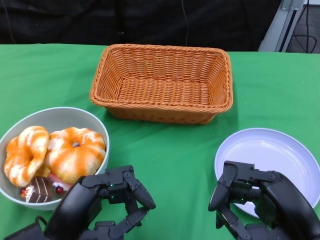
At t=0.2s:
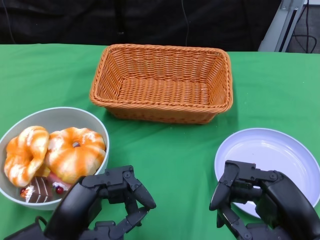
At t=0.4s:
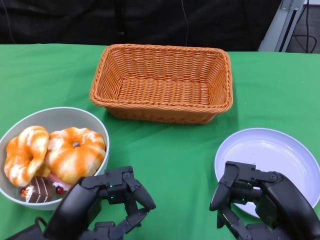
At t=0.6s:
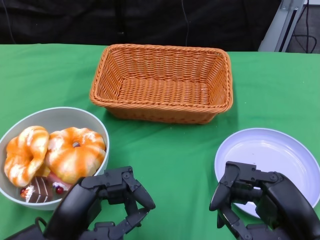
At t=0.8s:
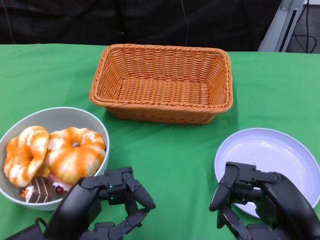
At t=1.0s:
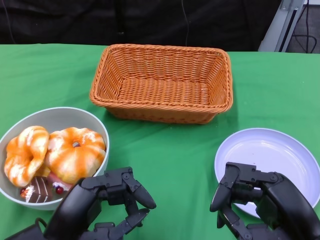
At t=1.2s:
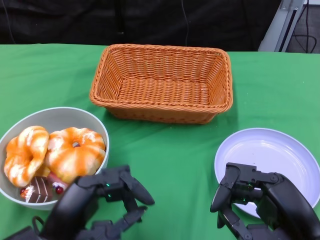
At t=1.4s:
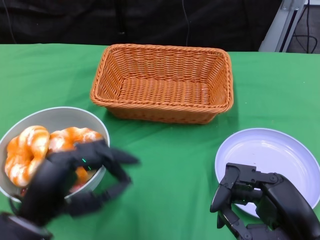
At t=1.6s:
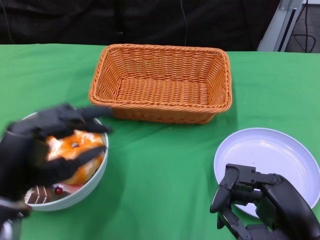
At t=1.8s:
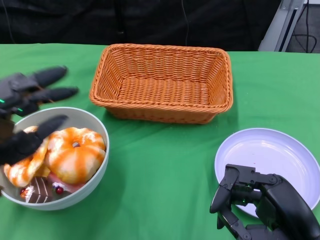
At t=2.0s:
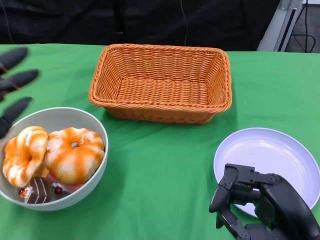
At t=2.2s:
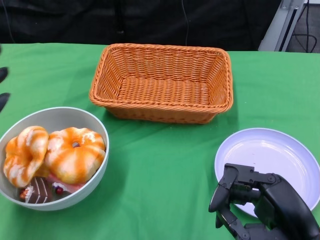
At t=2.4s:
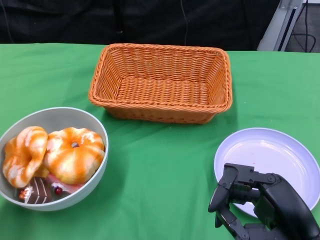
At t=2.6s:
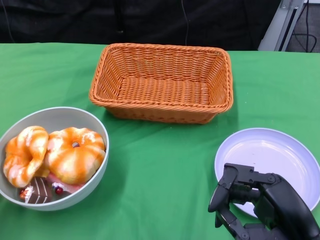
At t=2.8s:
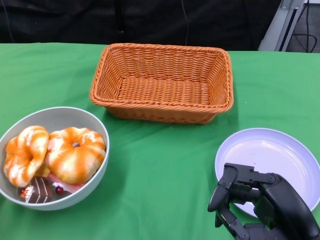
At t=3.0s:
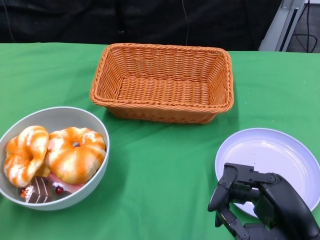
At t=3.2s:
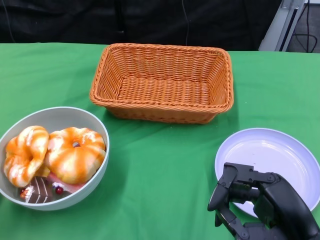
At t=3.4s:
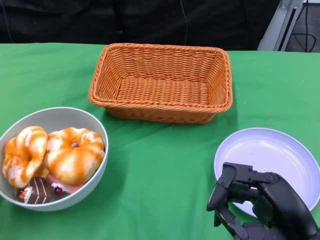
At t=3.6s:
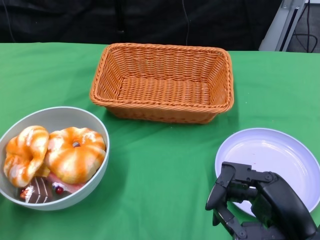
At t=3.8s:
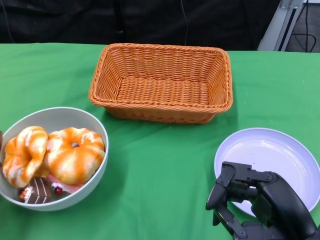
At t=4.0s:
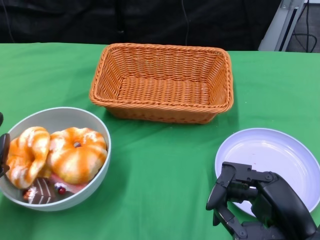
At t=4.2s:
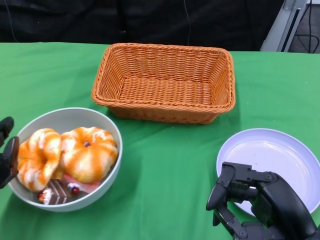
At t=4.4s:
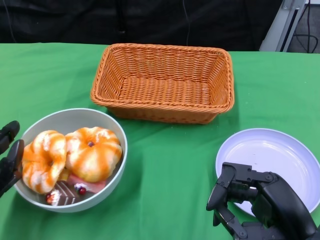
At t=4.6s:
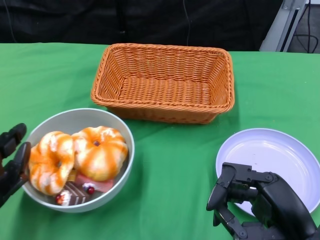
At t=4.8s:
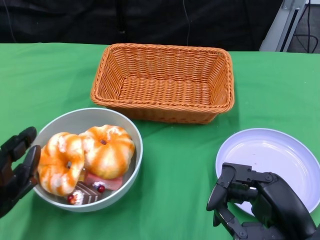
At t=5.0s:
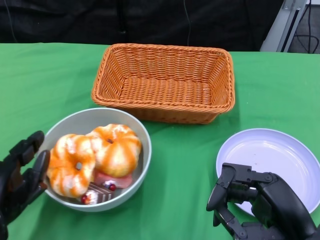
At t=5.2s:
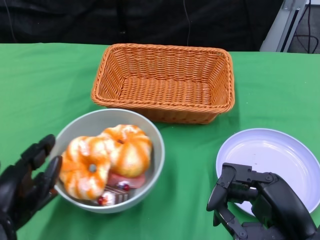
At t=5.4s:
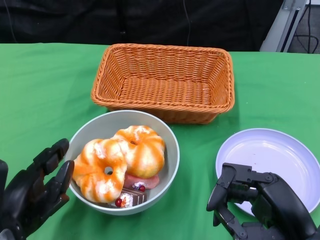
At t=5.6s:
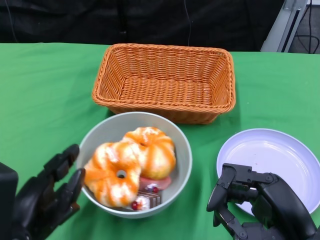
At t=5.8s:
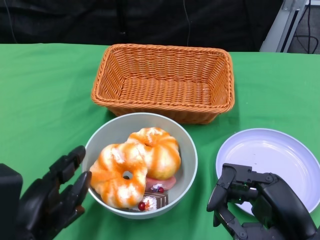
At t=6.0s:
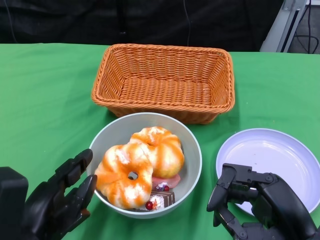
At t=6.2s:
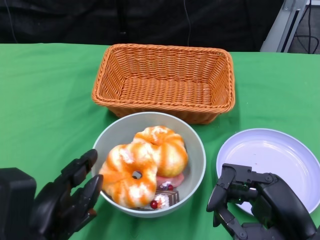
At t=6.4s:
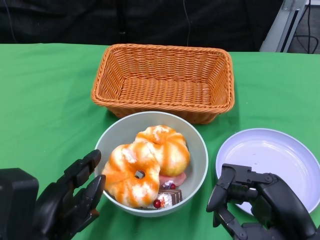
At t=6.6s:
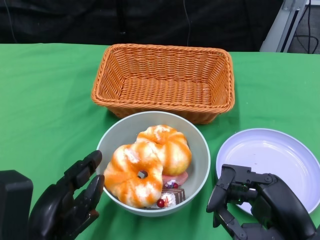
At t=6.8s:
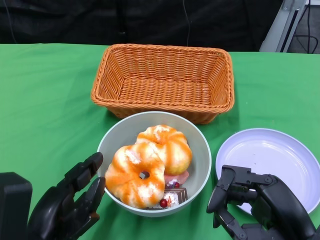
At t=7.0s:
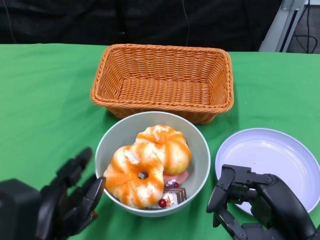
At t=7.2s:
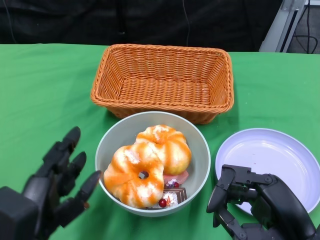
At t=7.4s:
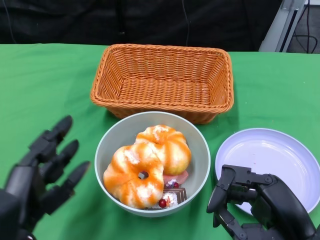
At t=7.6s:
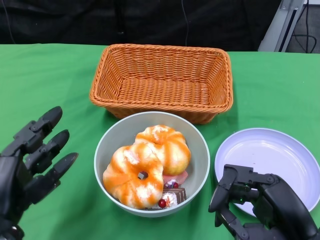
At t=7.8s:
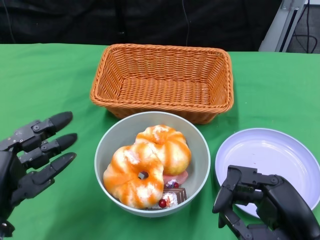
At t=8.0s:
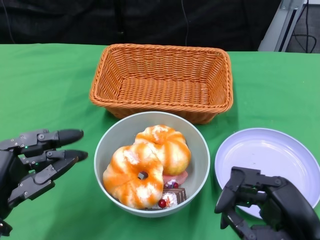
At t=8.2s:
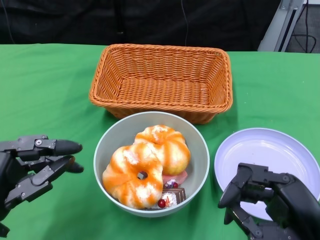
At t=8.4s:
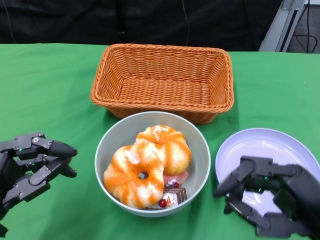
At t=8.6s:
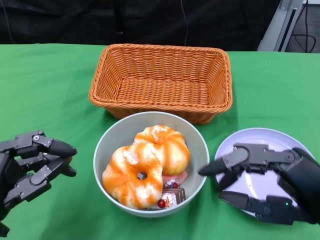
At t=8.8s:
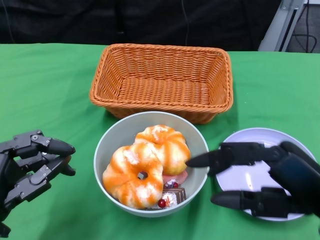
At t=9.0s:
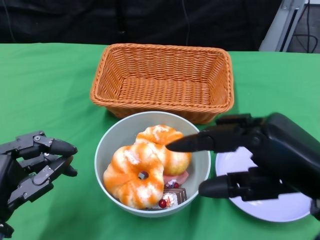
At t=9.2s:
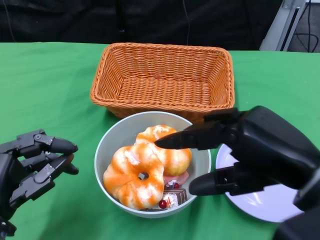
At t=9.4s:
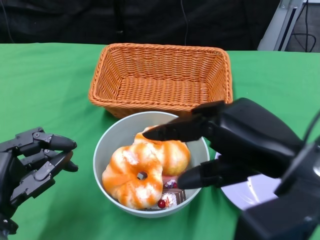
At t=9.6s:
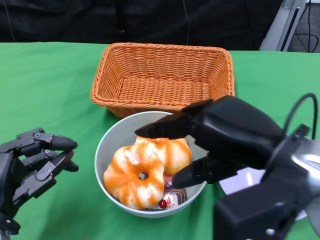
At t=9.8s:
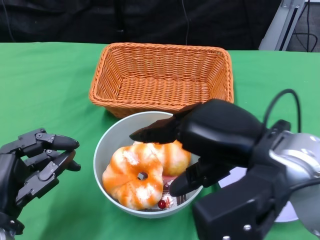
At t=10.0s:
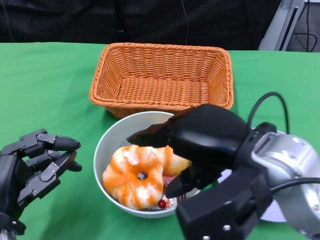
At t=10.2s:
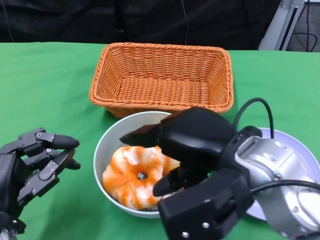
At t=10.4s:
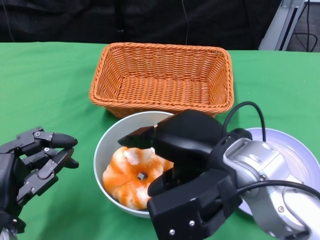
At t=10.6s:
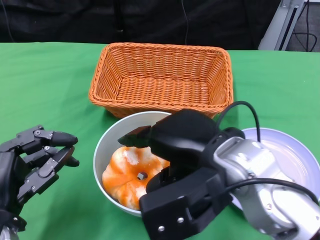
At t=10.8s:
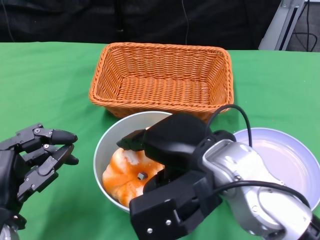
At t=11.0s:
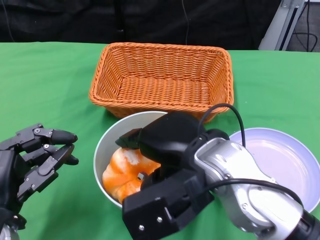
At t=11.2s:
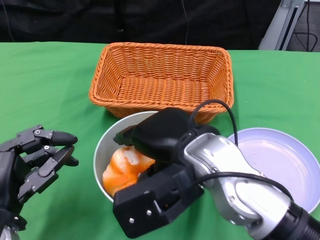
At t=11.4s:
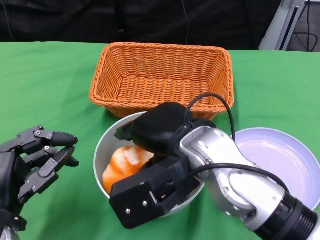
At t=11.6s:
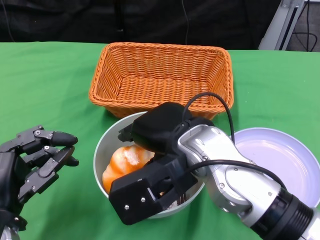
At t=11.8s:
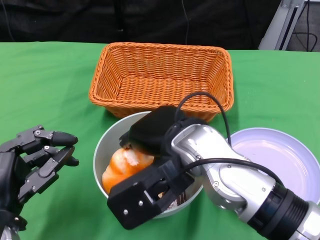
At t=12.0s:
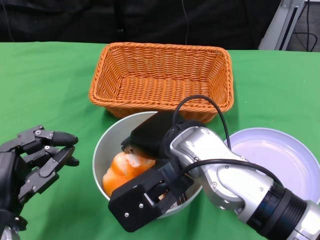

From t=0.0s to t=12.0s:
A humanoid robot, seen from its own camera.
Step, from t=0.0s to t=7.2s: Push the bowl to the center of the table using the left gripper.
From t=1.6s to t=3.0s: The left hand shifts approximately 15 cm to the left.
From t=3.0s to t=4.4s: The left hand is displaced to the right by roughly 5 cm.
From t=4.4s to t=6.0s: The left hand is displaced to the right and backward by about 10 cm.
From t=7.6s to t=9.0s: The right hand is displaced upward by roughly 10 cm.
From t=9.0s to t=10.4s: The right hand shifts some 10 cm to the left.
From t=10.4s to t=12.0s: The right hand goes some 5 cm to the left.

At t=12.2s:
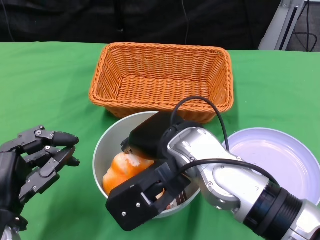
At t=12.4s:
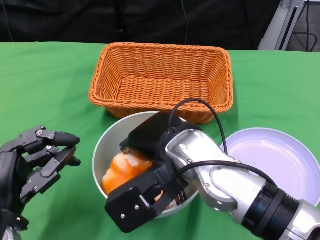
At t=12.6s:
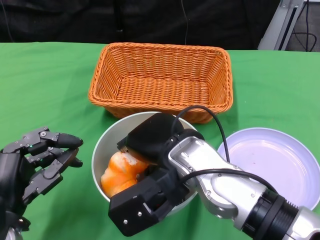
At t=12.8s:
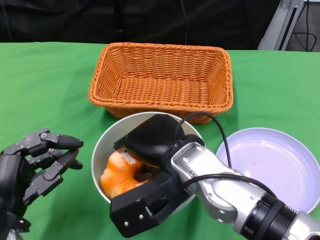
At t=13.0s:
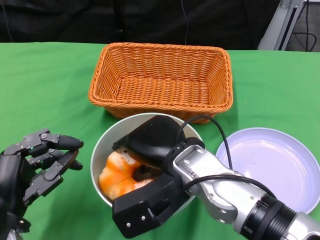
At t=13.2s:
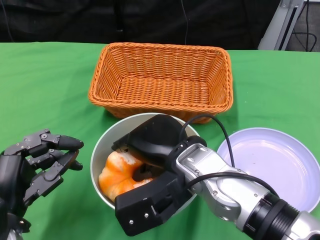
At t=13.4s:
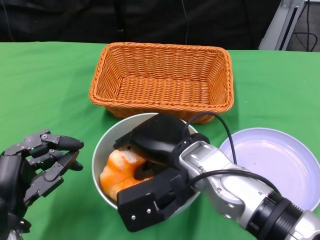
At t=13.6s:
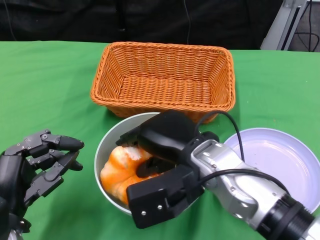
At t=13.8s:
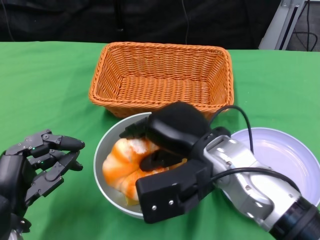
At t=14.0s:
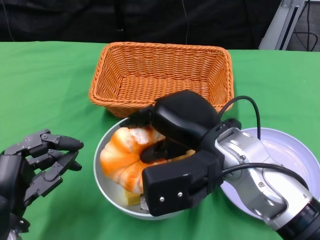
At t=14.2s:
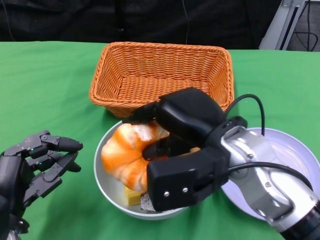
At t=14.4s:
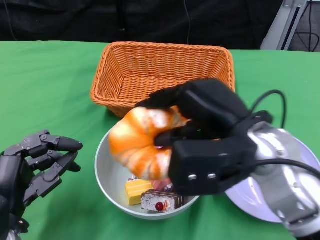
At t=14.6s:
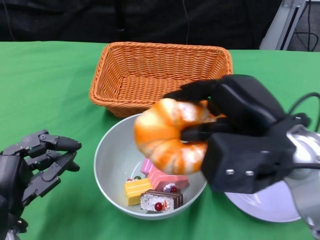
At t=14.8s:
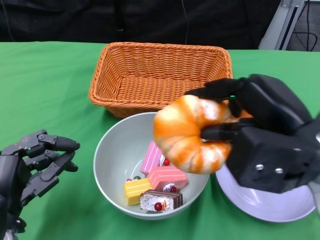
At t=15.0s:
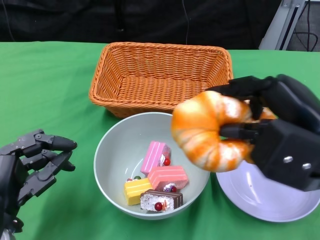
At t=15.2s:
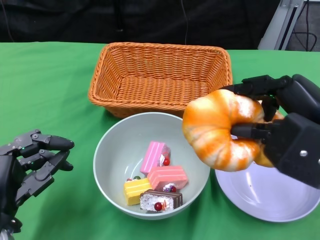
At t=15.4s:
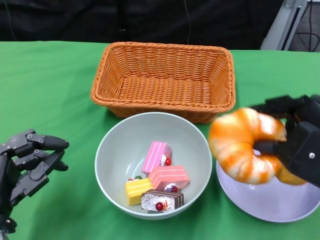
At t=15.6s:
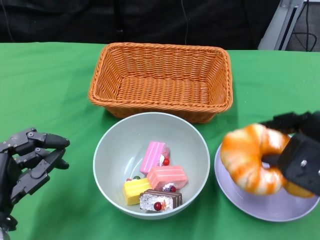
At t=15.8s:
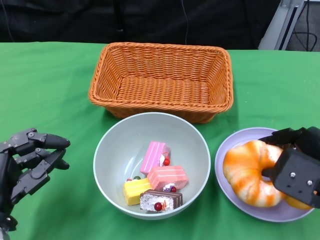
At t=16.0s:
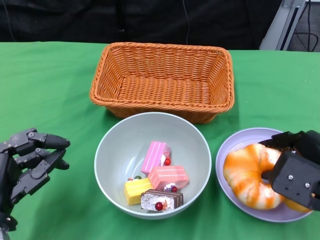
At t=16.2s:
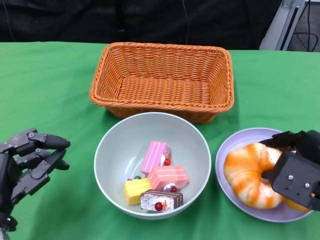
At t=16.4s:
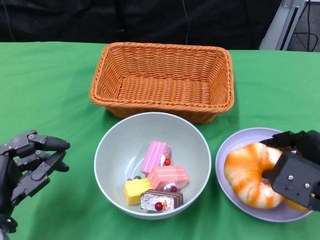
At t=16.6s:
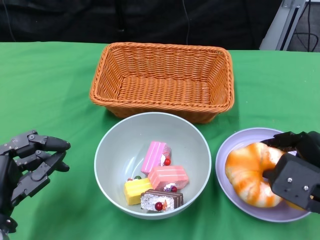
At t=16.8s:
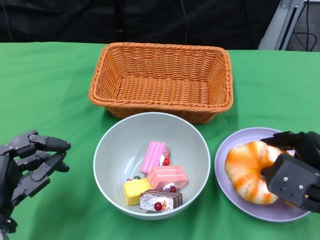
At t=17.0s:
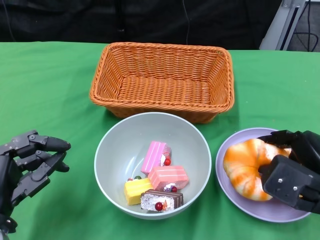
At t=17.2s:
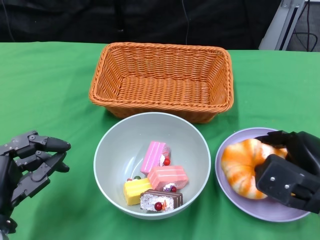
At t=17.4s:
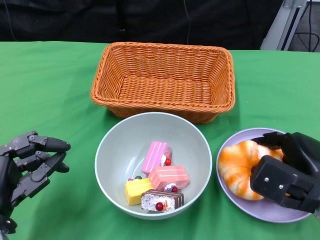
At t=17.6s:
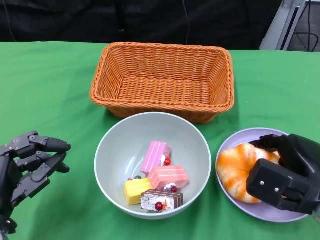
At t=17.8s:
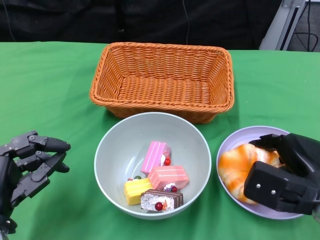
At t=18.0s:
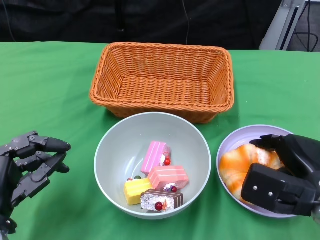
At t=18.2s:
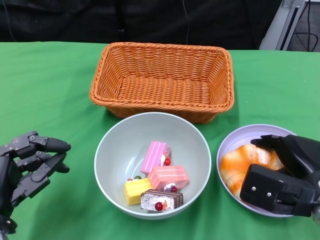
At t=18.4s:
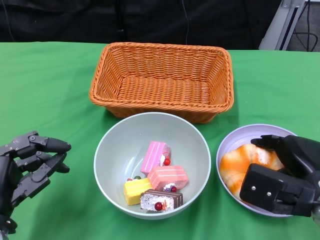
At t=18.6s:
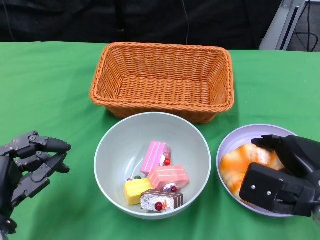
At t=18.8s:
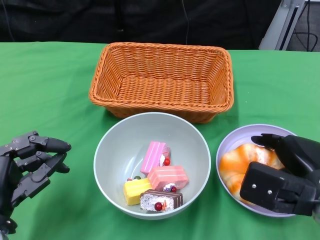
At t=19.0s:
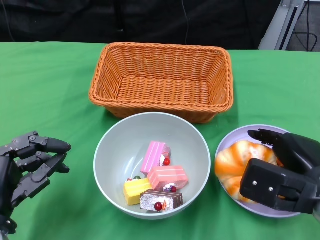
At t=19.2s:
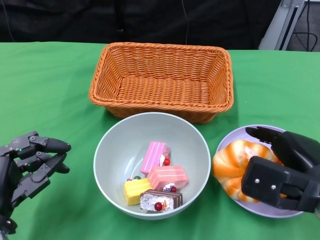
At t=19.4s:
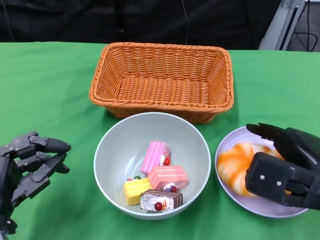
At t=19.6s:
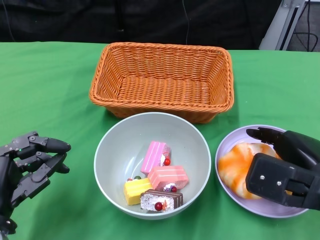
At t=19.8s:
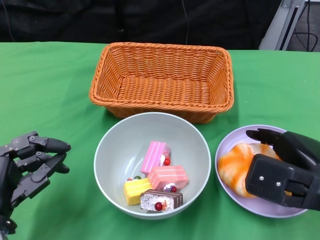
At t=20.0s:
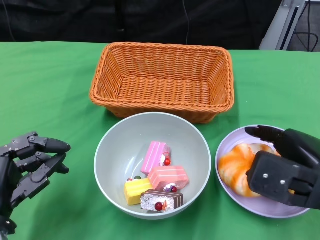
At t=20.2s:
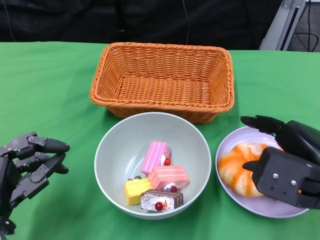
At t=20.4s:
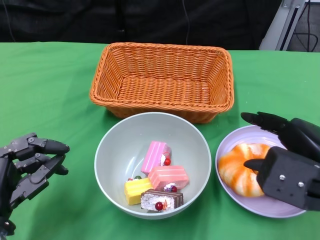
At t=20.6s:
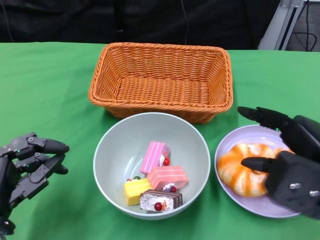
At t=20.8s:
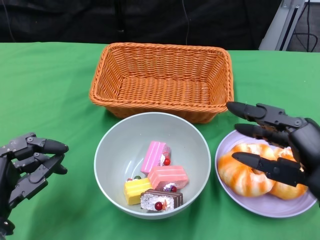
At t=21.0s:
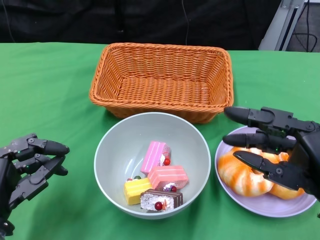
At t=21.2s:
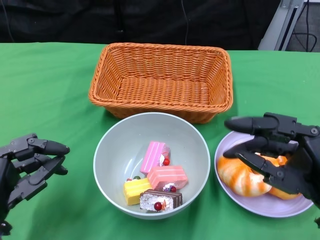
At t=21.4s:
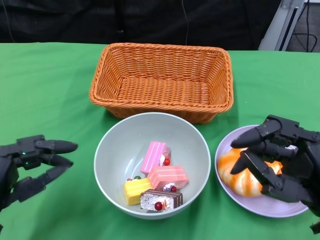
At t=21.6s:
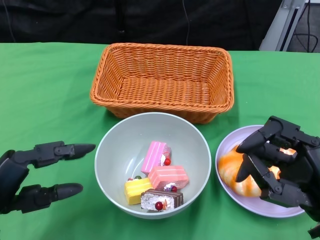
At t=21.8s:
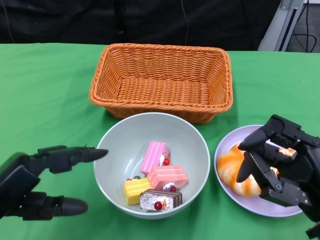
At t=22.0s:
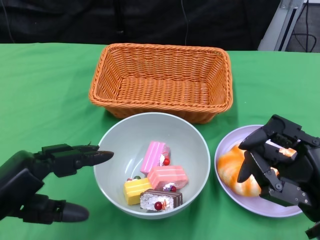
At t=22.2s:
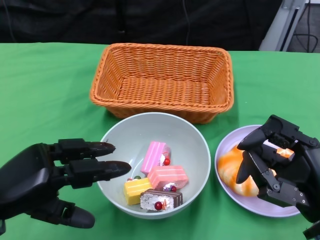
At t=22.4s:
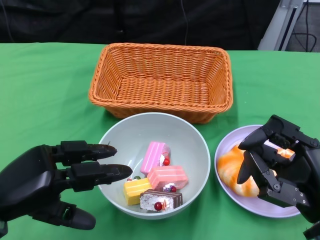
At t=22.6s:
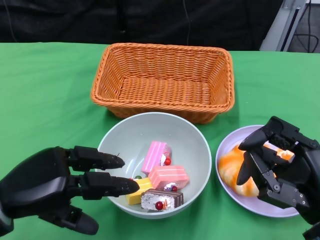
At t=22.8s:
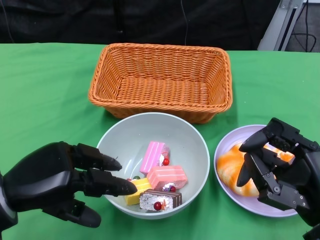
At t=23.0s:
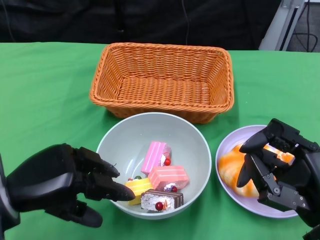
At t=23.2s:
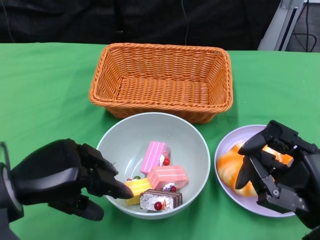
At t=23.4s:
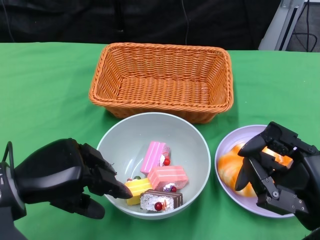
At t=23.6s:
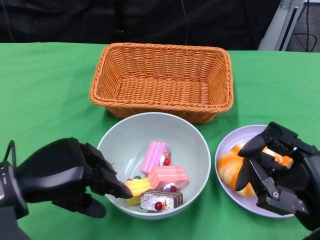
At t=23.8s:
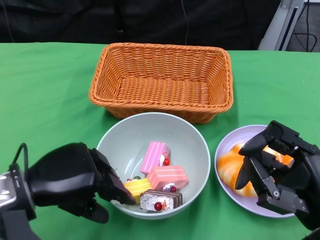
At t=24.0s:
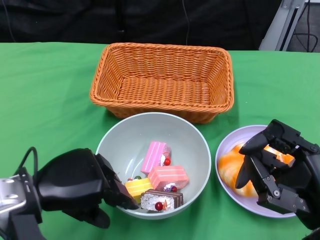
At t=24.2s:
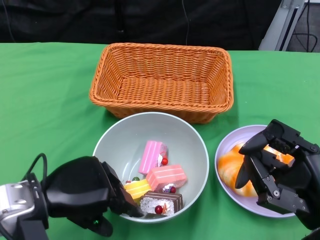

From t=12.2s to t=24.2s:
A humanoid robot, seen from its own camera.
Step, from t=12.2s to t=20.2s: Pick up the bread with the right gripper and place it on the plate.
From t=13.8s to t=15.2s: The right hand moves to the right, some 15 cm.
From t=15.2s to t=16.6s: The right hand moves downward, about 10 cm.
From t=16.6s to t=19.8s: The hands make only small movements.
From t=19.8s to t=21.2s: The right hand moves backward, roughly 5 cm.
From t=21.2s to t=22.6s: The left hand is displaced upward by approximately 5 cm.
From t=22.6s to t=24.2s: The hands move only a little.
